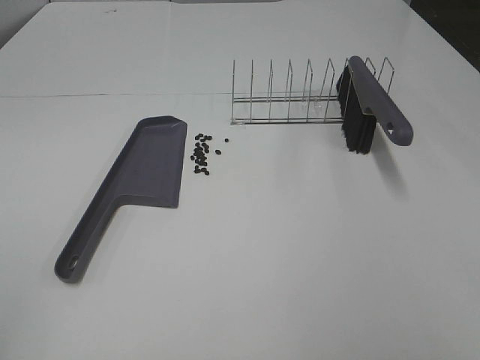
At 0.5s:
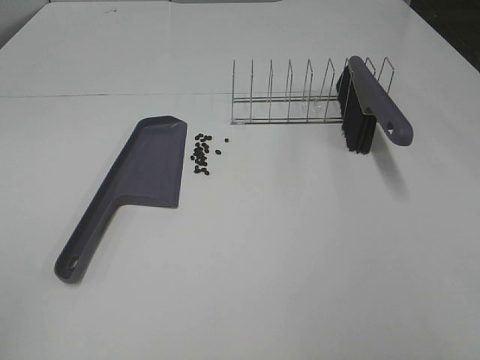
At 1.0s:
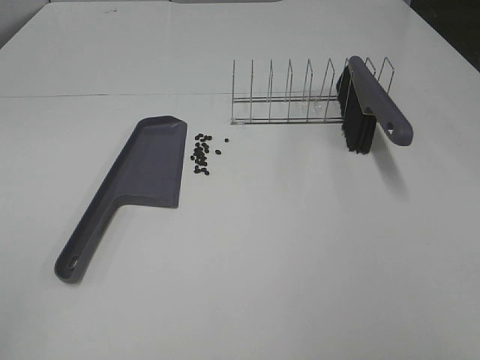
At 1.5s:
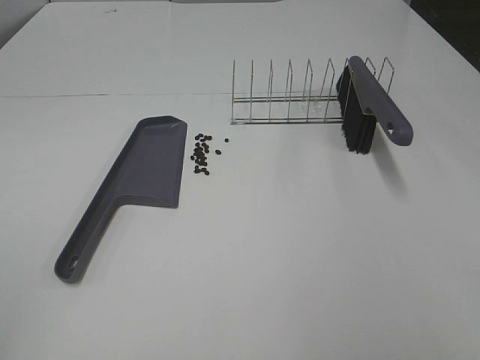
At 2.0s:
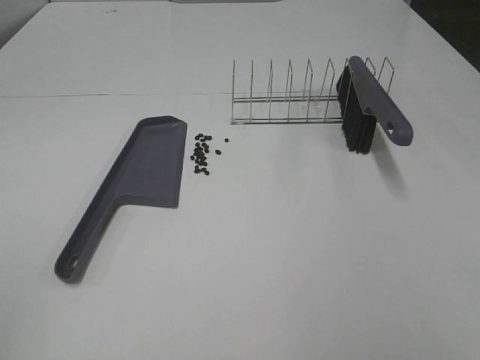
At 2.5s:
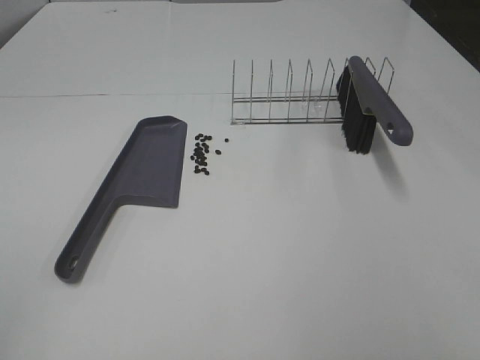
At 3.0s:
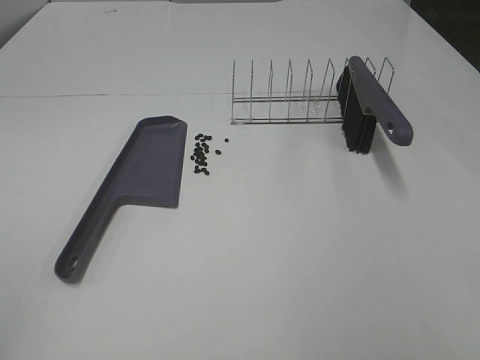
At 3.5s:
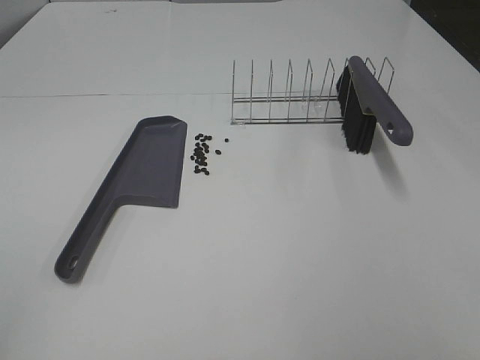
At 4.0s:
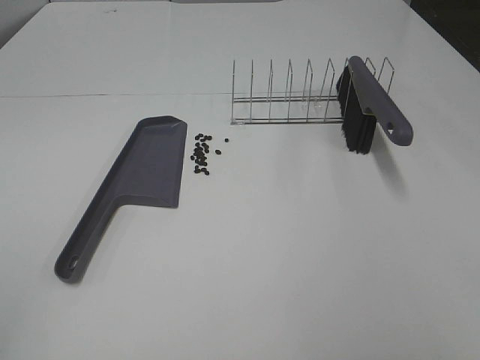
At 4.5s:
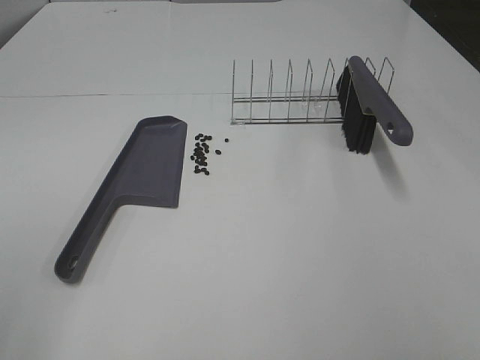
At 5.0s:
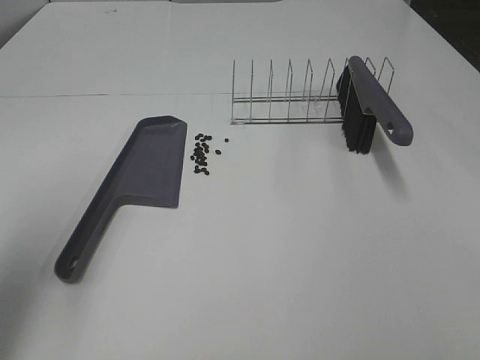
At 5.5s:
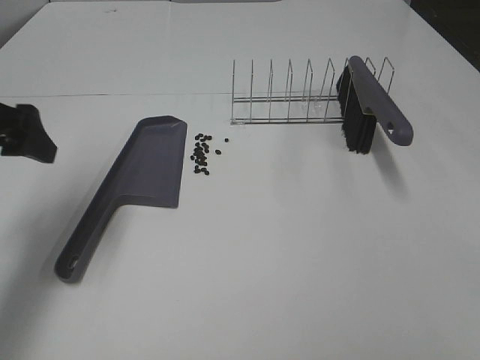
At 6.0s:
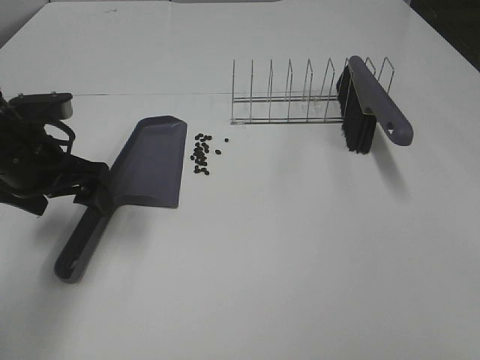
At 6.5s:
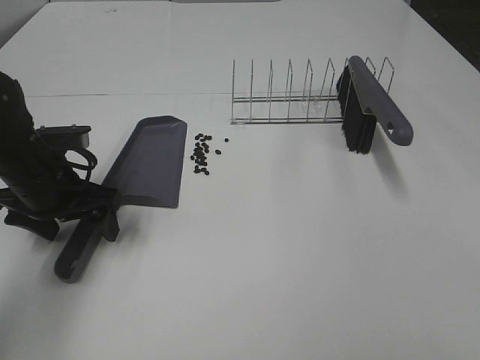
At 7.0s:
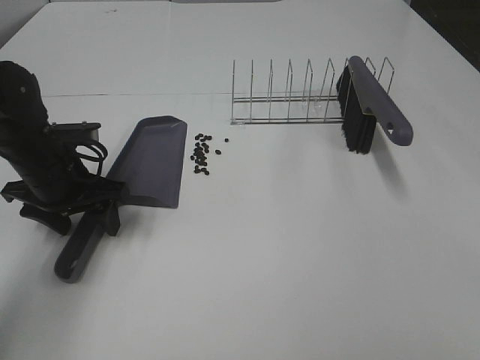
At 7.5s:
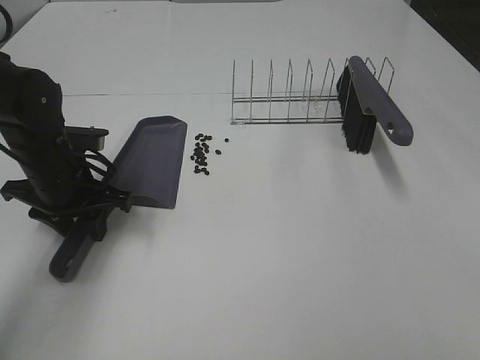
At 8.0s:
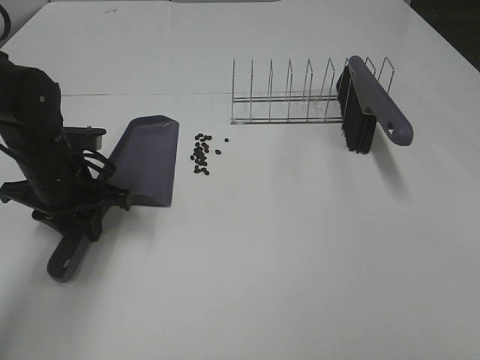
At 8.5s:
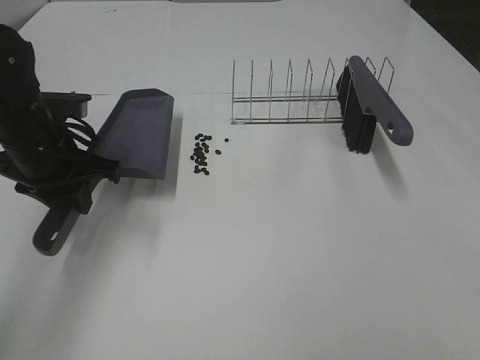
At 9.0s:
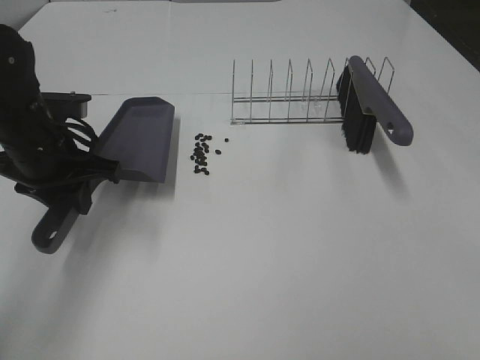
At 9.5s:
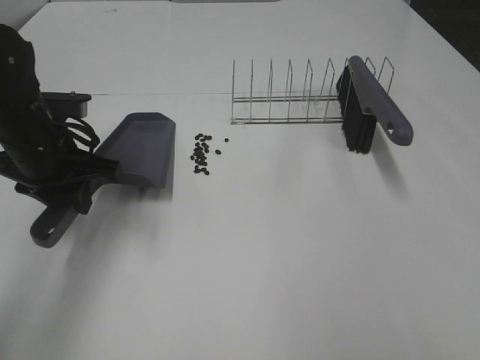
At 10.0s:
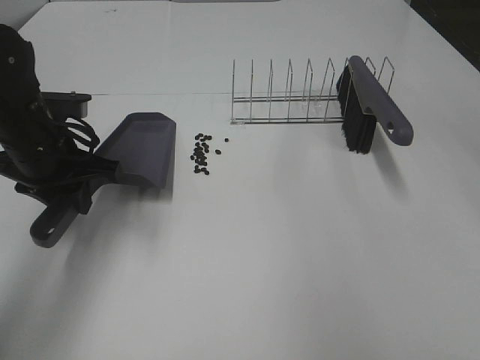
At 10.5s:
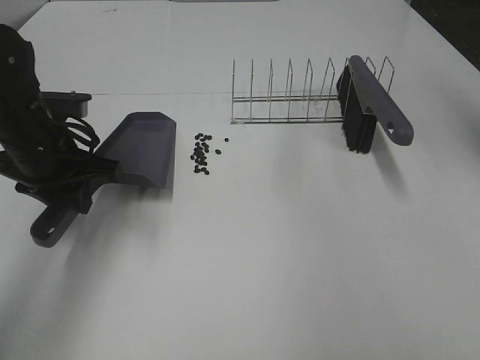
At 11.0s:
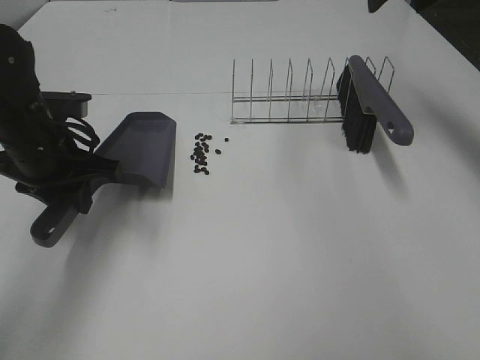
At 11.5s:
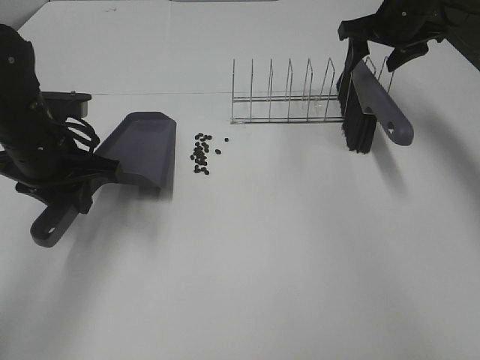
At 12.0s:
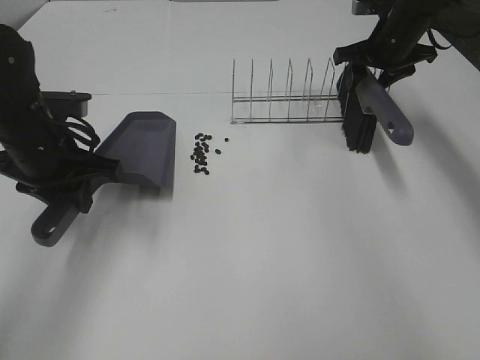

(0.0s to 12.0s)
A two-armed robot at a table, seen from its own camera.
Task of the whole recording: Sweep Coffee Bean.
Step, 0.0s - 7.5s: Left hand: grab the dustpan.
0.0s - 4.0s: Neither gripper changes place.
4.0s - 6.0s: The left gripper moves forward and downward, some 35 cm.
6.0s - 8.0s: The left gripper changes place by some 5 cm, and closes.
10.0s - 12.0s: The right gripper goes some 35 cm forward and downward, and closes up.

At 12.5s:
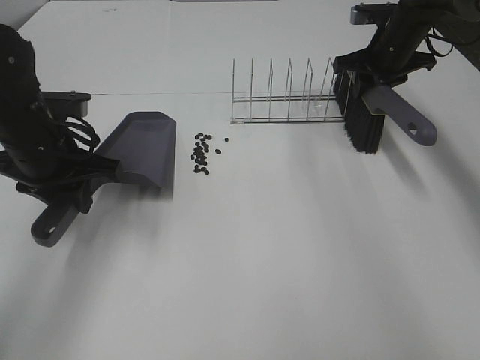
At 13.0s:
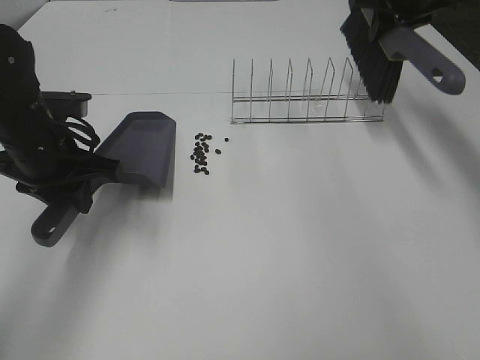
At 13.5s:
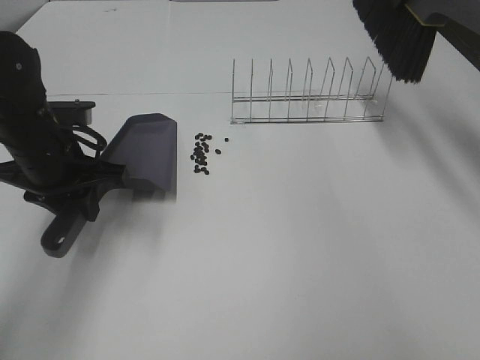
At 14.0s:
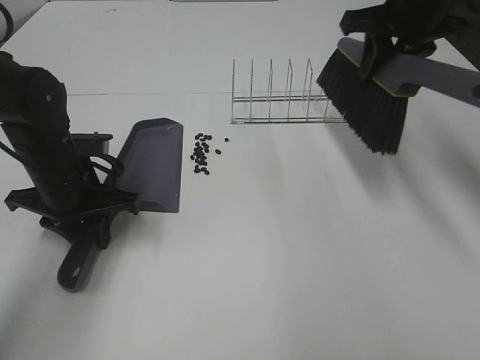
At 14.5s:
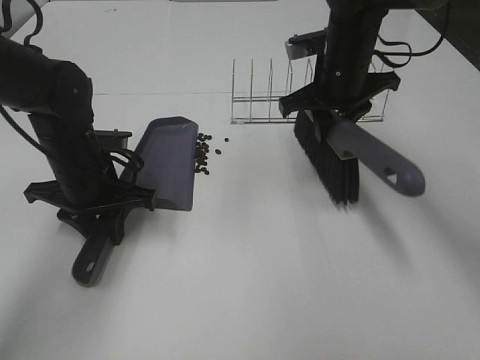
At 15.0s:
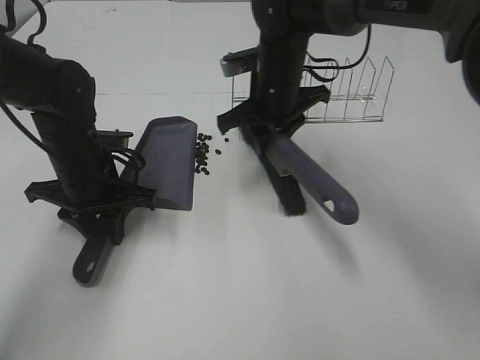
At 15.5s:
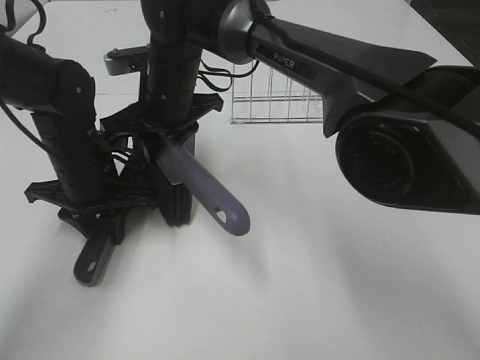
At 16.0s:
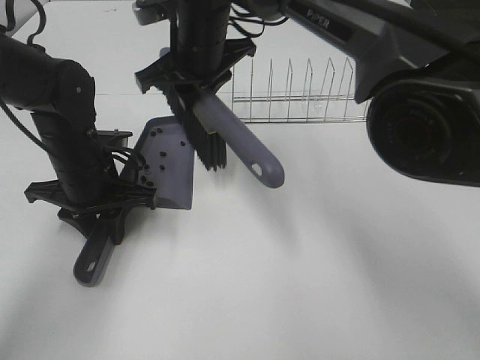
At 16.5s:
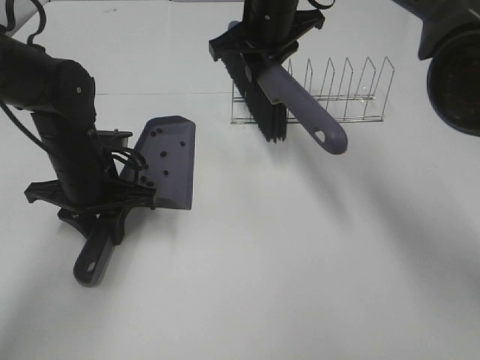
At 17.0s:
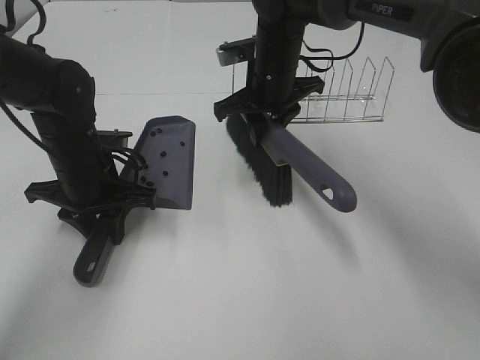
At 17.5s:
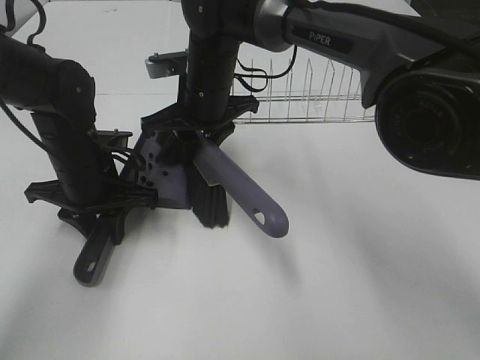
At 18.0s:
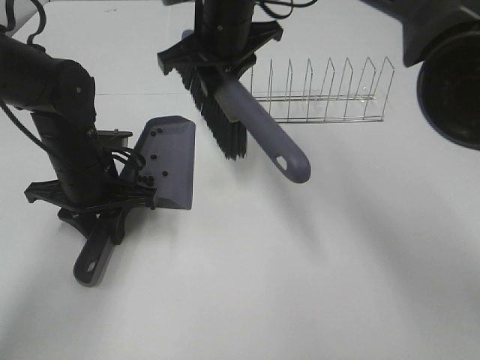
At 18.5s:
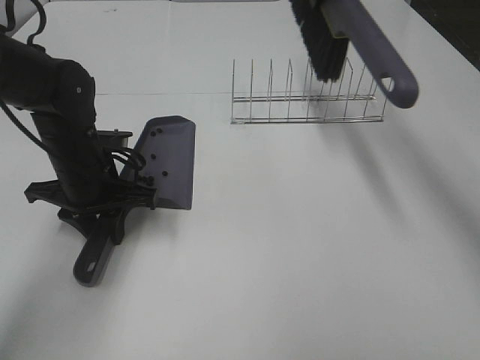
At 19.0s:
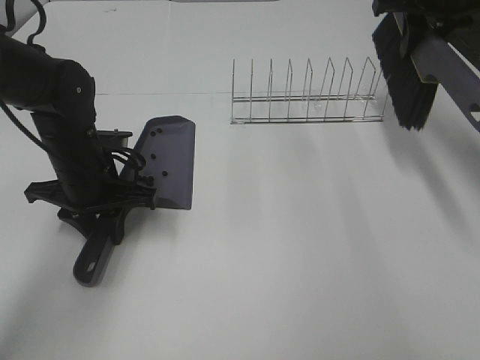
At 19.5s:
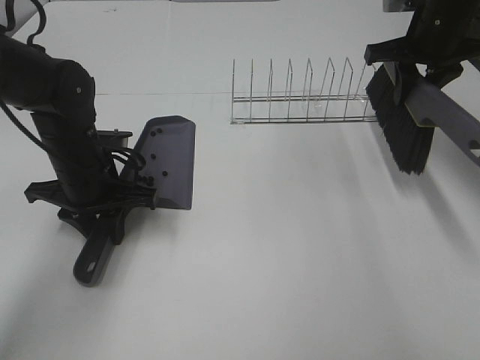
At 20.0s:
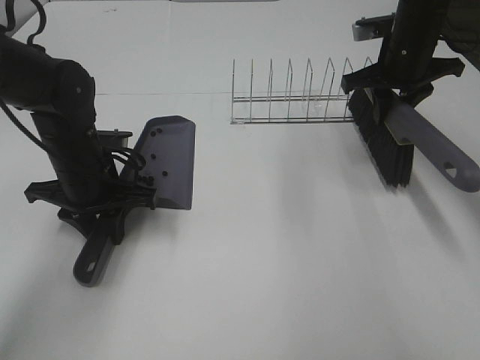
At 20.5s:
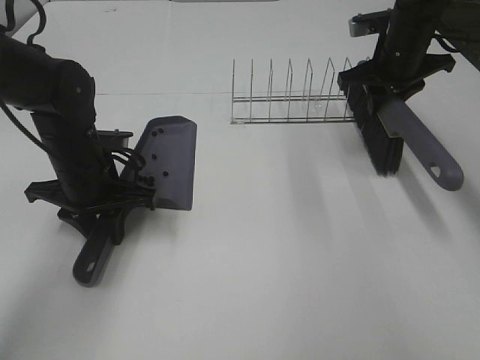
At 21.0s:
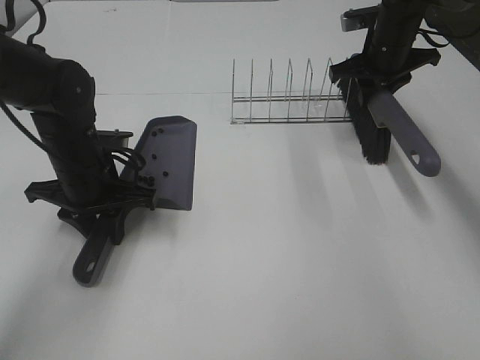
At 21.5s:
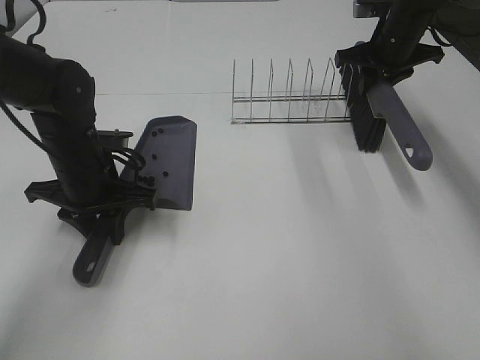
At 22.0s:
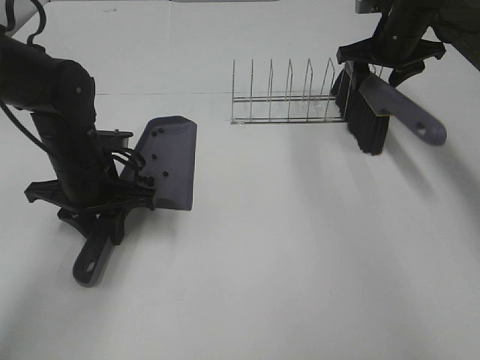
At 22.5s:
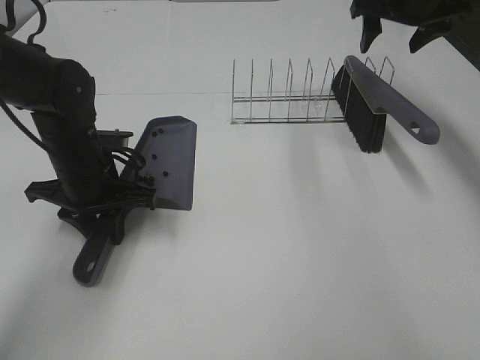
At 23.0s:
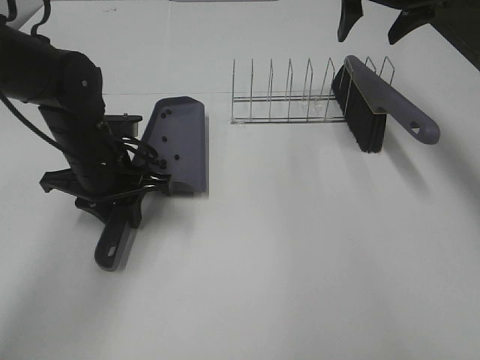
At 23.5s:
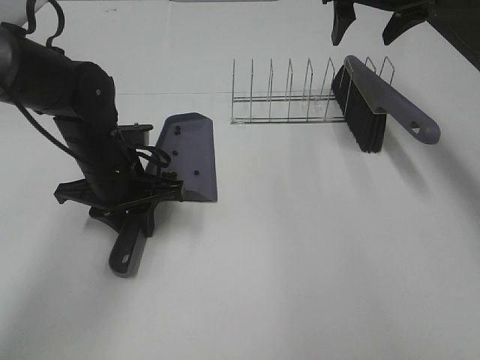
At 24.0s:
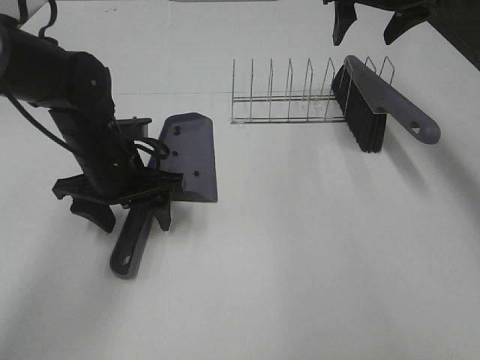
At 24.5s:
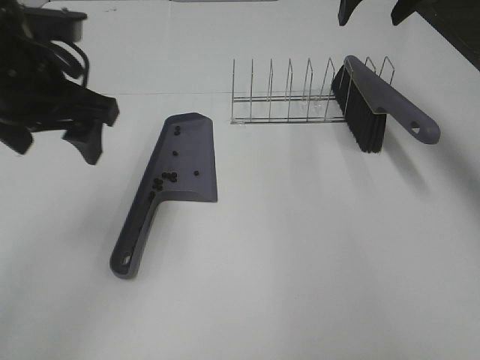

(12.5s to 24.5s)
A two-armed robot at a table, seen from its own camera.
Task of the whole recording: Sweep Coffee Bean.
Step, 13.0s - 17.5s: Right hand:sweep the coffee beans into the dustpan.
Step, 18.0s - 22.0s: Right hand:place the broom on the rack.
Step, 22.5s - 24.0s: Left hand:place the dustpan on the table.
12.5s - 14.5s: The right gripper shifts approximately 15 cm to the left and backward, and travels upward and back again, some 15 cm each way. The left gripper is displaced downward by about 5 cm.
14.5s - 16.5s: The right gripper moves to the left and upward, about 10 cm.
16.5s - 18.5s: The right gripper moves upward and to the right, approximately 15 cm.
18.5s - 20.5s: The right gripper goes roughly 20 cm downward and to the right.
20.5s - 22.5s: The right gripper is displaced upward by some 10 cm, and opens its fingers.
22.5s - 24.5s: The left gripper heads upward, covering some 15 cm, and opens its fingers, while the right gripper shifts some 5 cm upward.

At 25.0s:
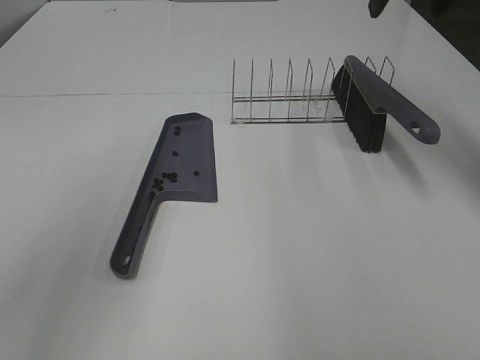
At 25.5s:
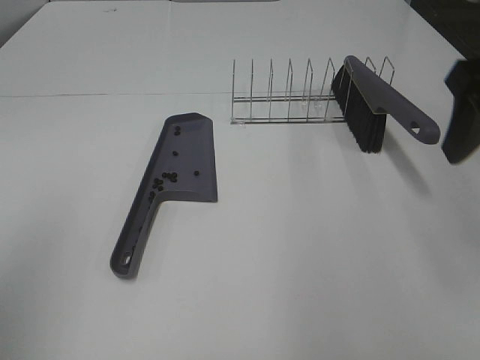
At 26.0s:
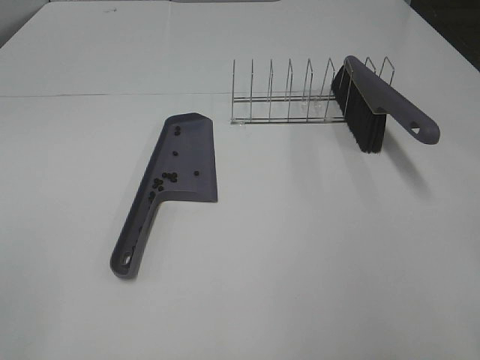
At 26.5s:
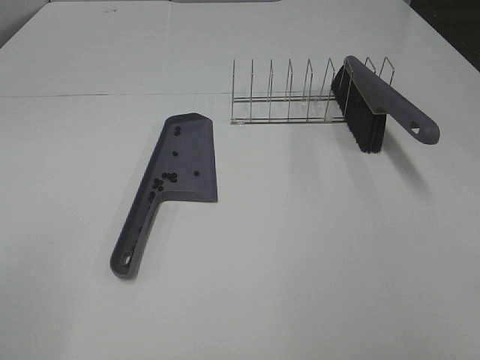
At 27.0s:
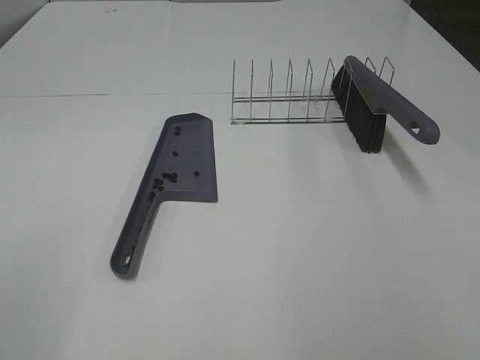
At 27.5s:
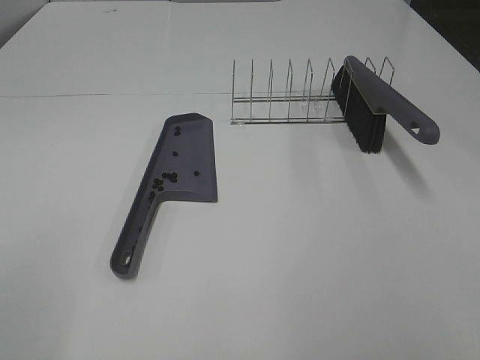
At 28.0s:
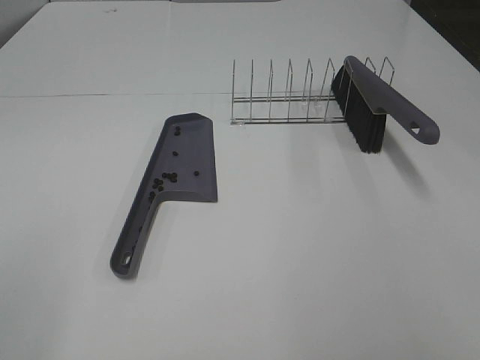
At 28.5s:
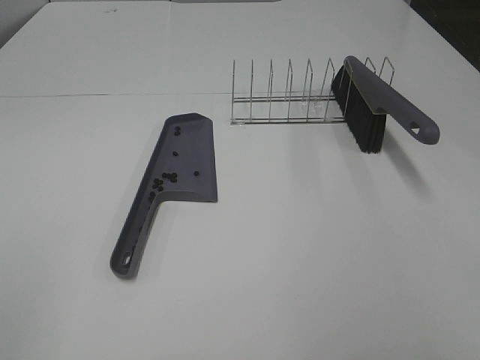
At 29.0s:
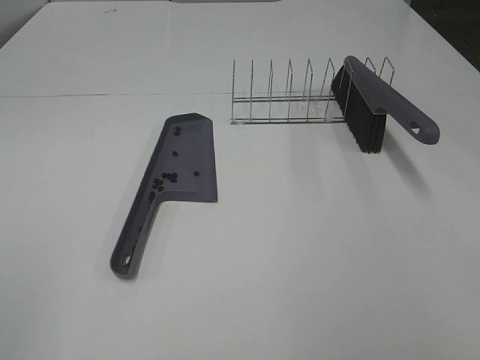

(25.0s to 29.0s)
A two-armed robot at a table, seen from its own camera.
Task of the whole recording: Sweep Coffee Bean.
25.0s - 27.0s: The left gripper goes about 20 cm backward and downward. The right gripper is displaced backward by about 40 cm.
